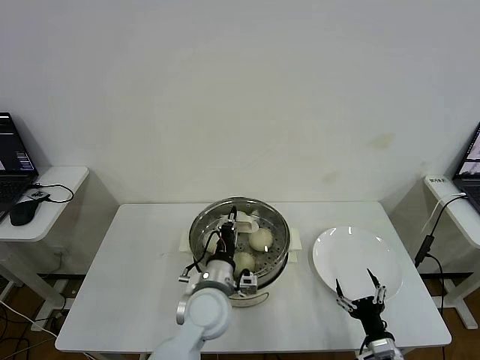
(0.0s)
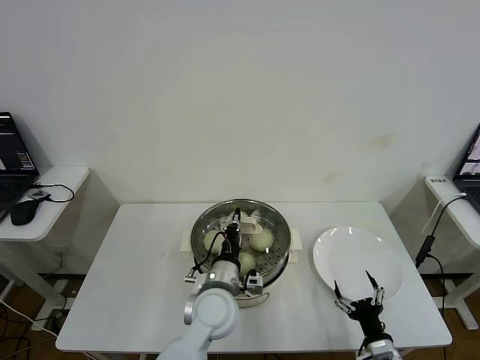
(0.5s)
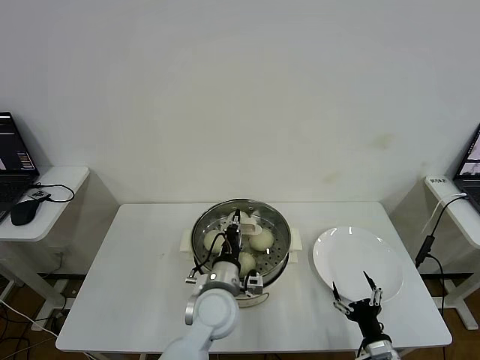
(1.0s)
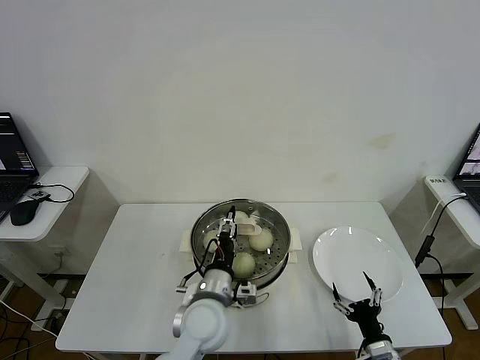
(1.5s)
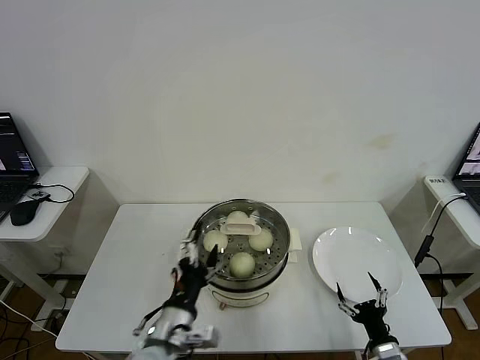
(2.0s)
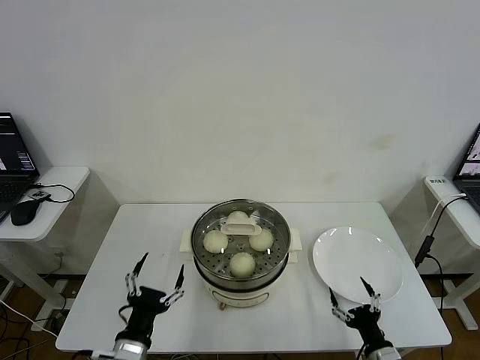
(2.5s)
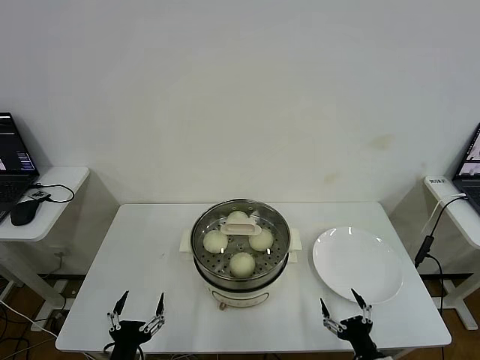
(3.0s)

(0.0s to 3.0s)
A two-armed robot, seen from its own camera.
0.0s - 1.5s: The left gripper opens.
1.5s - 3.0s: The left gripper is displaced to the left and backward by roughly 25 cm, and opens.
